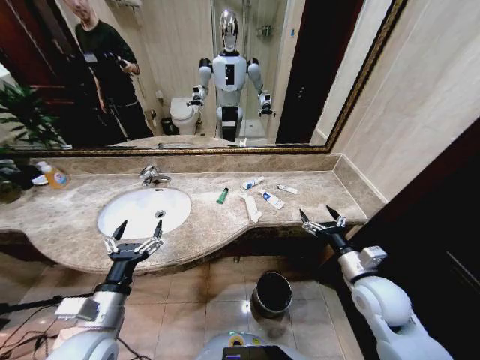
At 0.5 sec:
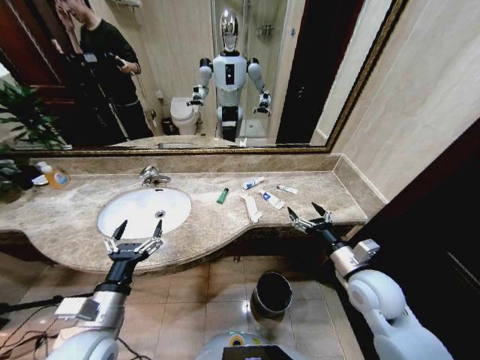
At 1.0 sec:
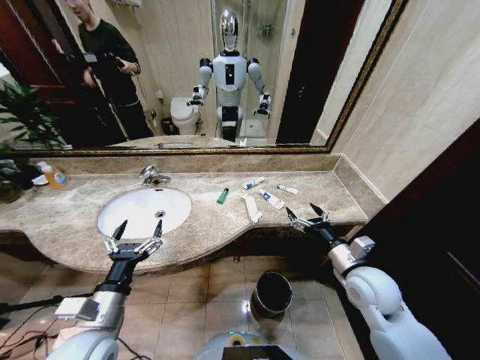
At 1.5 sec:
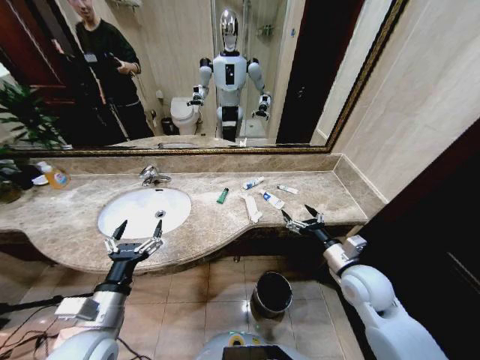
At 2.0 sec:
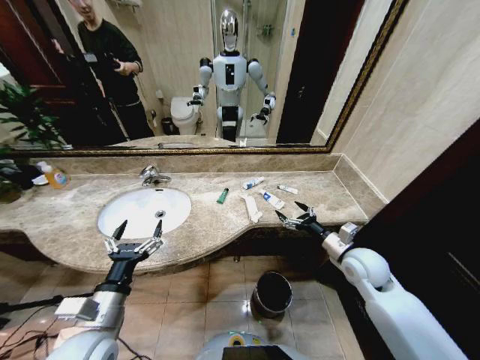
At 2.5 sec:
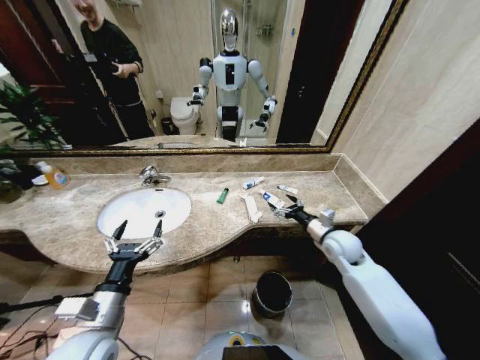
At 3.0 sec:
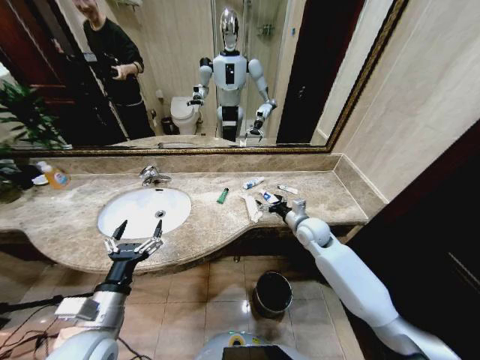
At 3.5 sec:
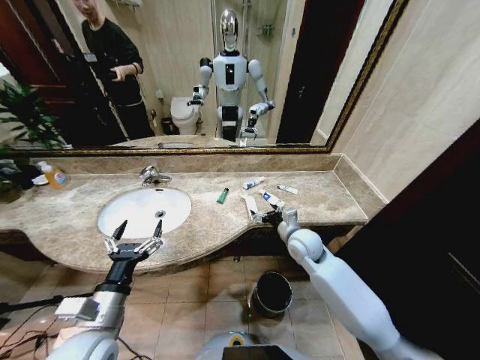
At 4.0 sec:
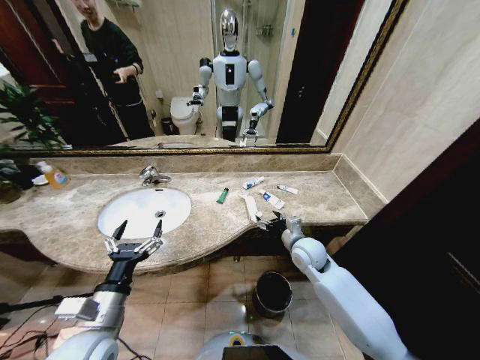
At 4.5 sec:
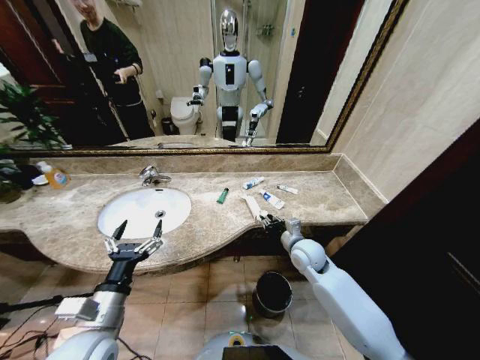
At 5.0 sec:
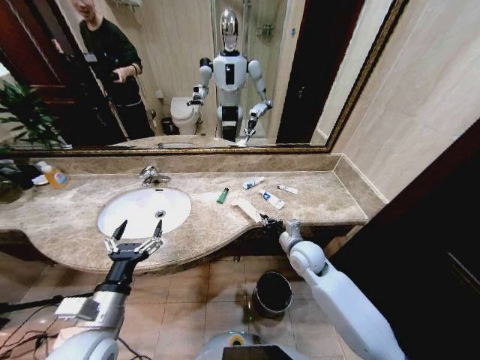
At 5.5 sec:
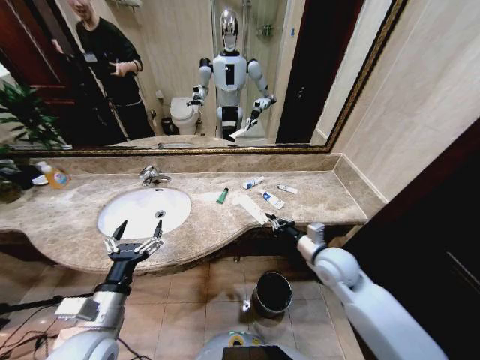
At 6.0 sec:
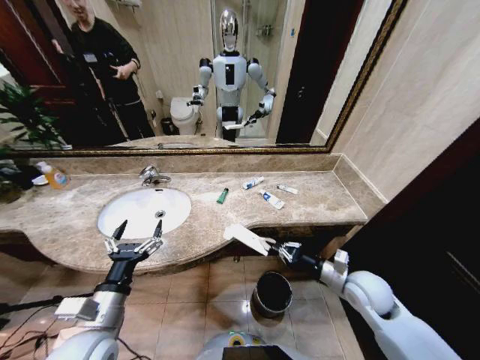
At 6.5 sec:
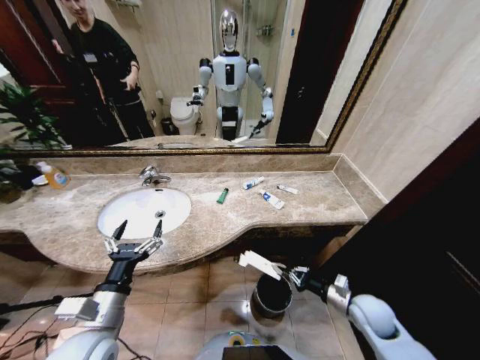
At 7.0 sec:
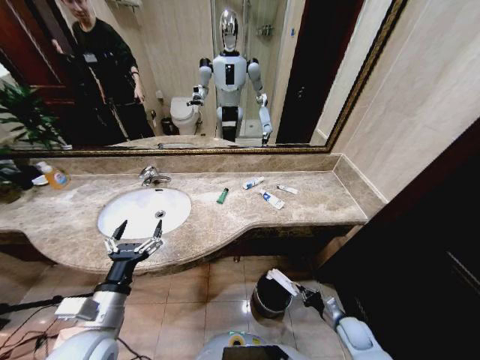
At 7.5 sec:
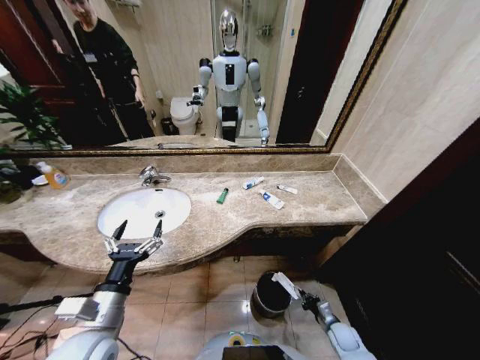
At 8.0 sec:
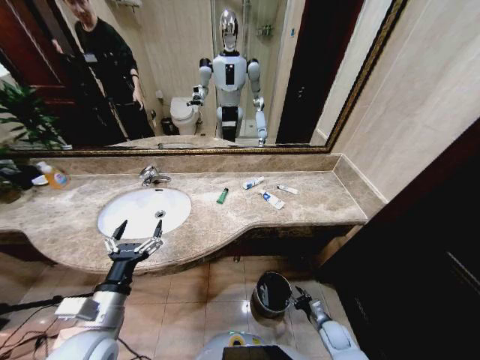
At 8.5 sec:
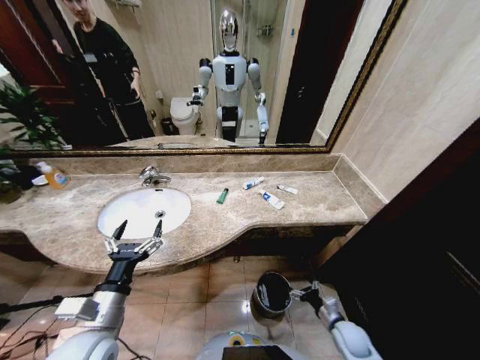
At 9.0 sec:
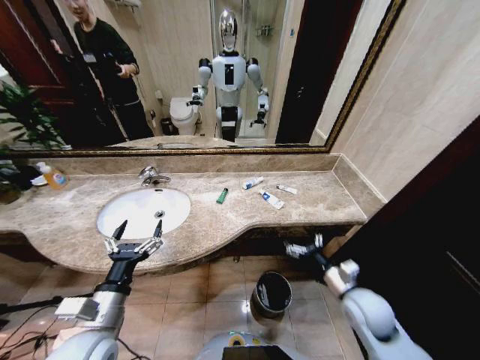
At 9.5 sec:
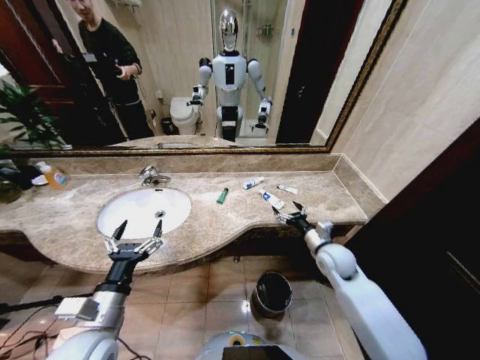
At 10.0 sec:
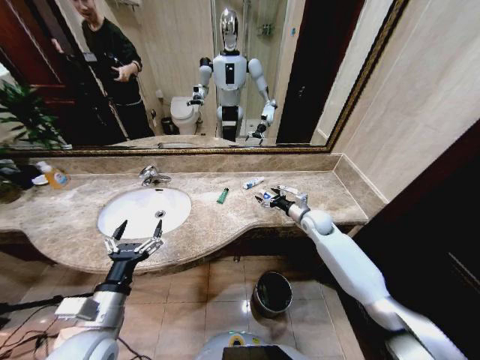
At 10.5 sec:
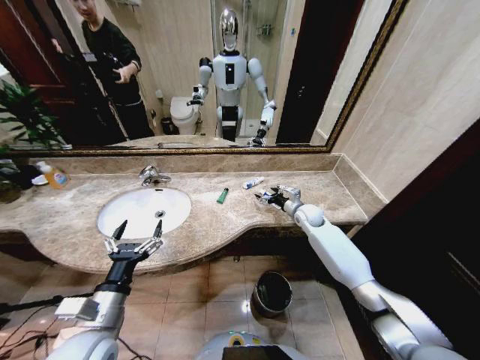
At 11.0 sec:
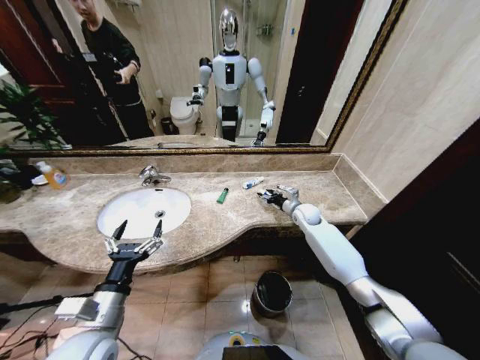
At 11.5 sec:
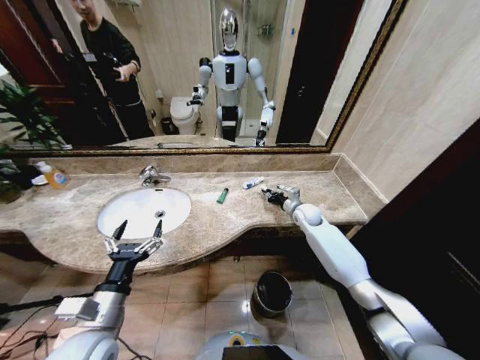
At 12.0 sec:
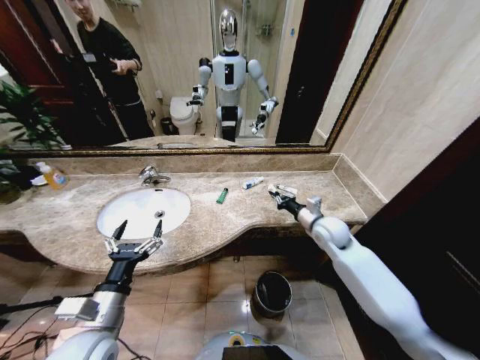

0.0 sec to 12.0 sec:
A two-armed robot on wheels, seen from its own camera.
Task of the whole recording: Pick up the trash from the sink and place it in the trash bin.
2.0 sec to 4.0 sec: The right gripper heads to the left and forward, covering roughly 15 cm.
4.0 sec to 6.0 sec: The right gripper travels to the right and backward by approximately 15 cm, and closes up.
6.0 sec to 8.0 sec: The right gripper shifts roughly 30 cm downward, and opens its fingers.
8.0 sec to 10.0 sec: The right gripper moves upward and forward, some 40 cm, and opens up.
10.0 sec to 12.0 sec: The right gripper goes about 10 cm backward and upward, and closes its fingers.

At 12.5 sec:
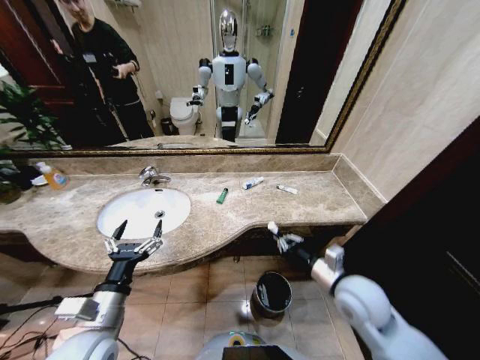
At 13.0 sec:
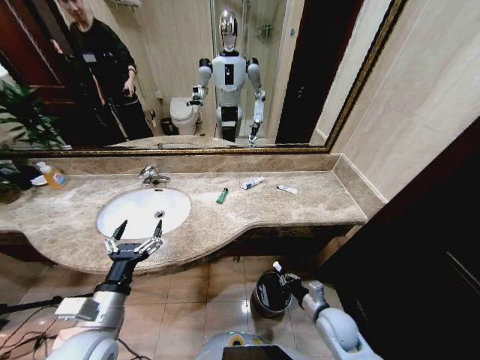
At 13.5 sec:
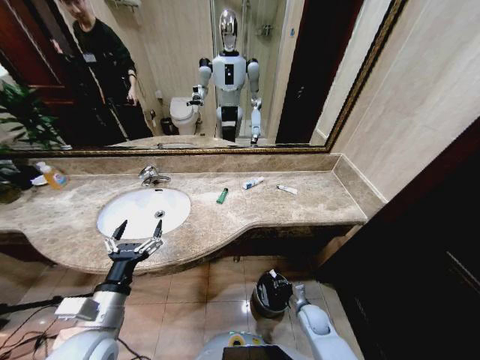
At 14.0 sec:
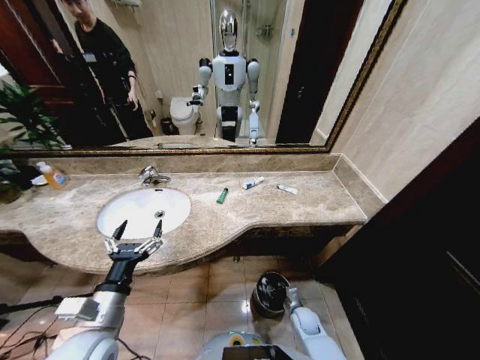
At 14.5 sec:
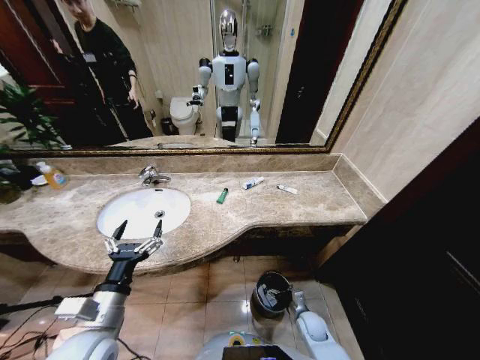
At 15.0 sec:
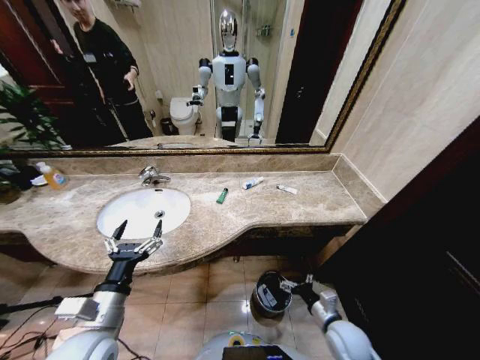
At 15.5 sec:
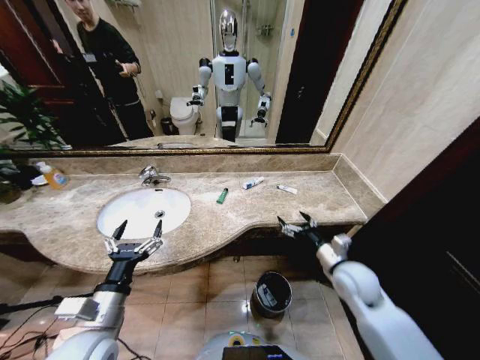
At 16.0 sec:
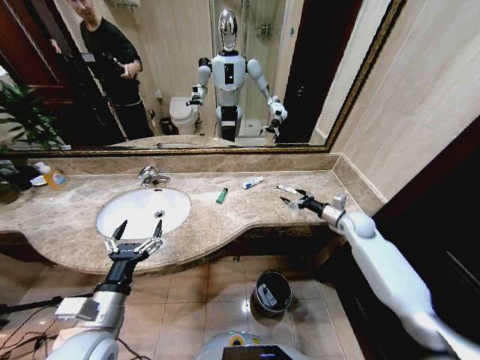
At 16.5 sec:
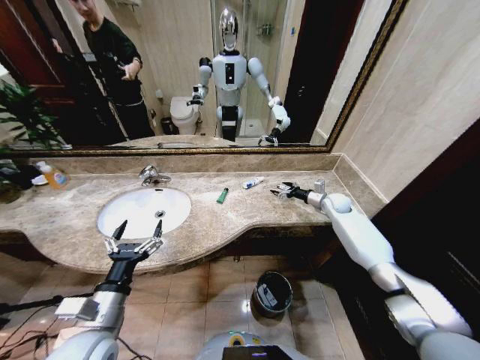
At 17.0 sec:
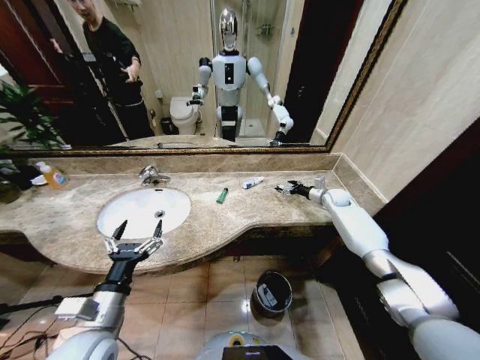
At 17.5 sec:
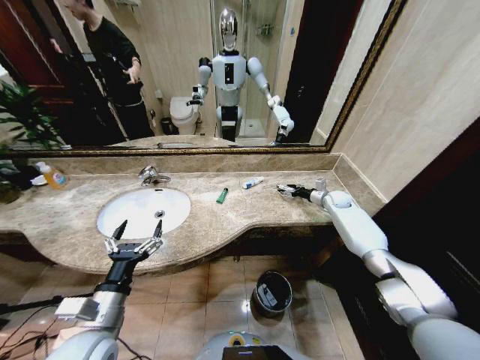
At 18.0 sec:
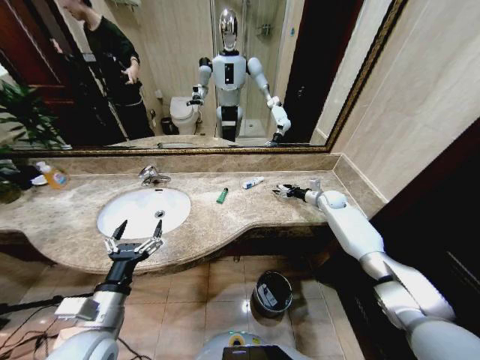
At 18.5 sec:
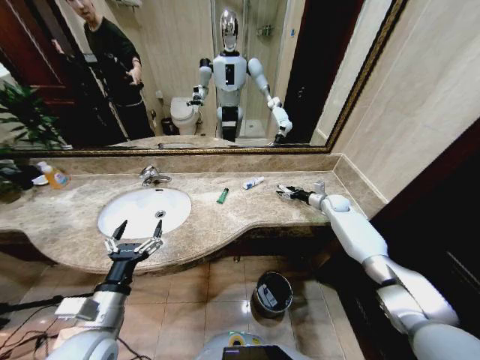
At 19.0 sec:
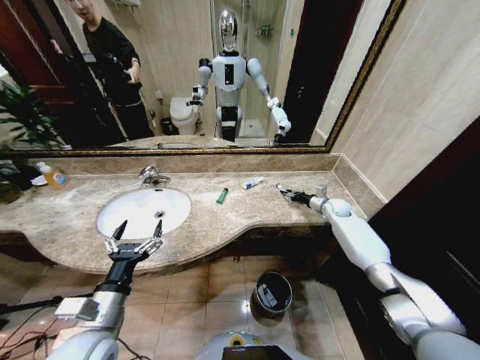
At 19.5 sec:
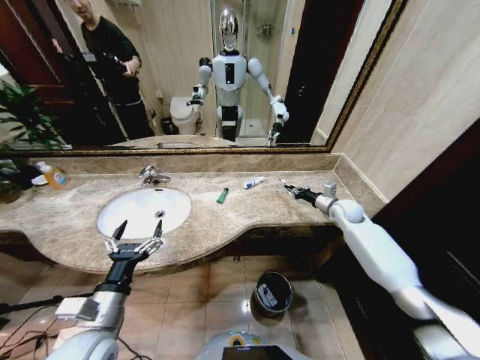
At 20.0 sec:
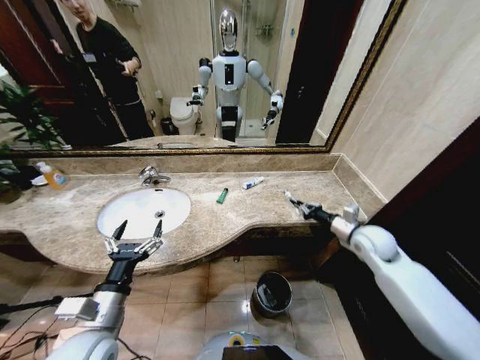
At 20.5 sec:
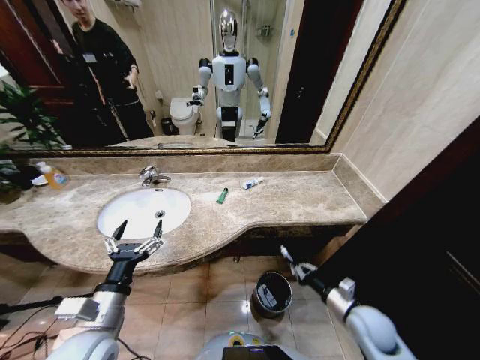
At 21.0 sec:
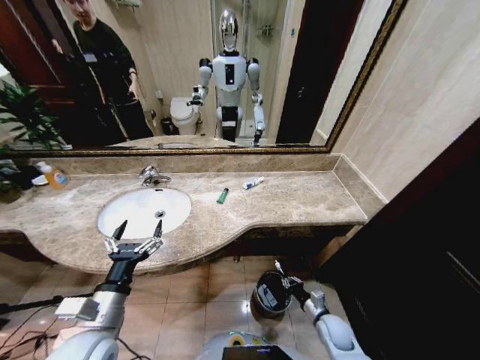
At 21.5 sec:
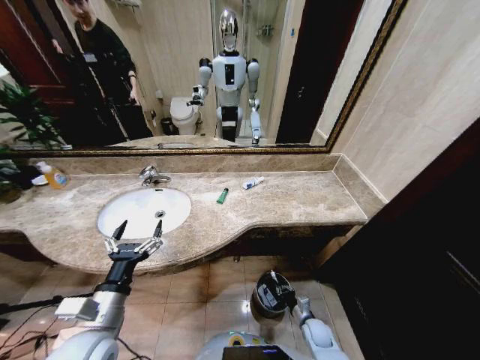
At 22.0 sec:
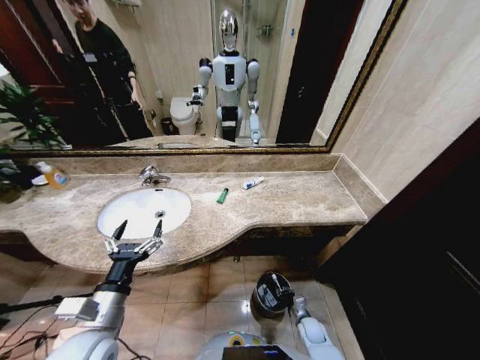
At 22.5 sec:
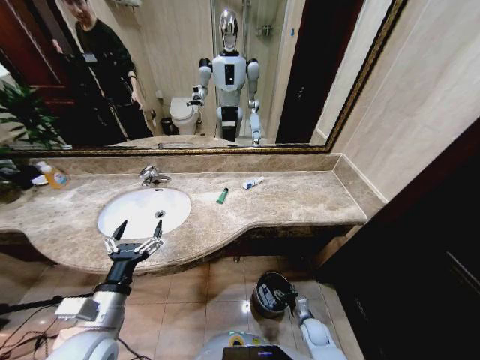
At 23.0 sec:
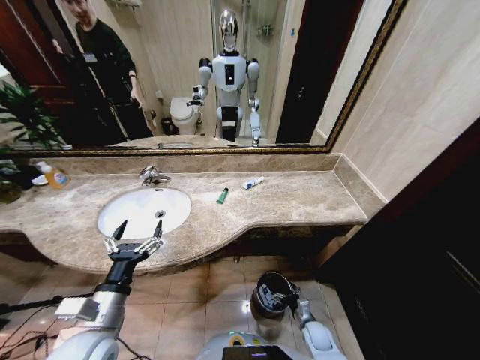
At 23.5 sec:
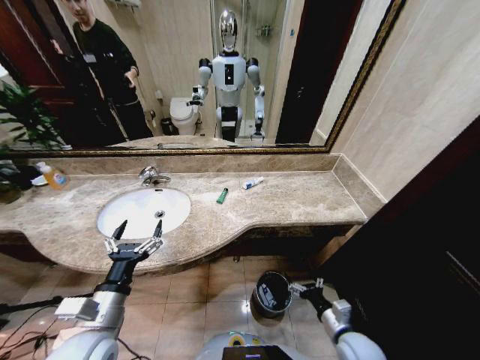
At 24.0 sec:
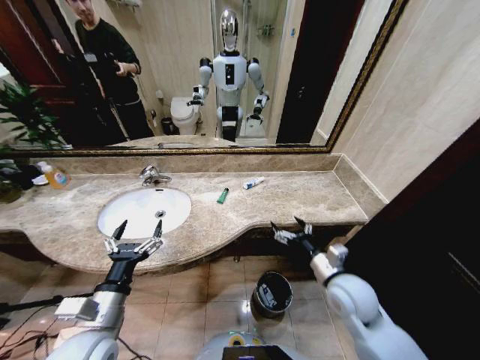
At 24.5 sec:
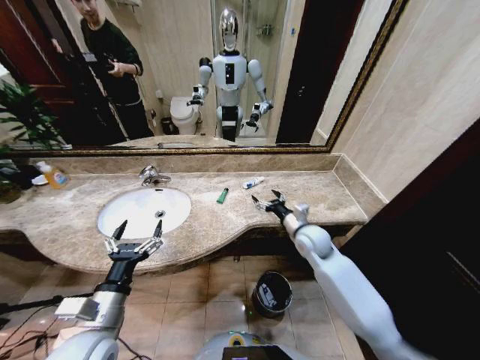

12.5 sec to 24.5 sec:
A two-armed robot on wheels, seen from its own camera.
Task of the whole recording: Pick up the trash from the sink and place it in the trash bin.
12.5 sec to 14.5 sec: The right gripper shifts about 30 cm downward, and opens up.
14.5 sec to 16.5 sec: The right gripper heads forward, upward and to the right, covering about 50 cm.
16.5 sec to 18.5 sec: The grippers stay close to where they were, moving slightly.
18.5 sec to 20.5 sec: The right gripper heads backward, covering roughly 35 cm, and closes up.
20.5 sec to 22.5 sec: The right gripper is displaced downward by some 25 cm, and opens its fingers.
22.5 sec to 24.5 sec: The right gripper heads upward and forward, covering approximately 40 cm, and opens.

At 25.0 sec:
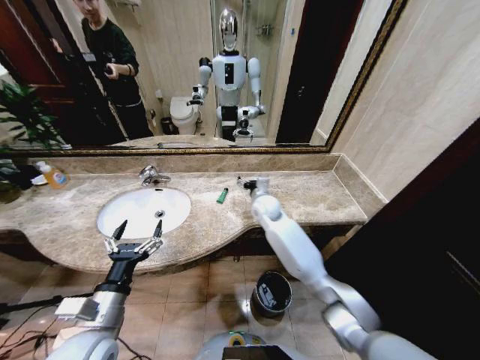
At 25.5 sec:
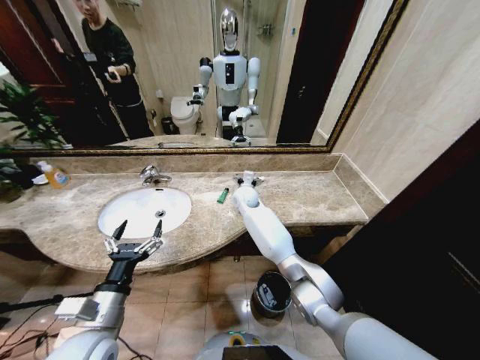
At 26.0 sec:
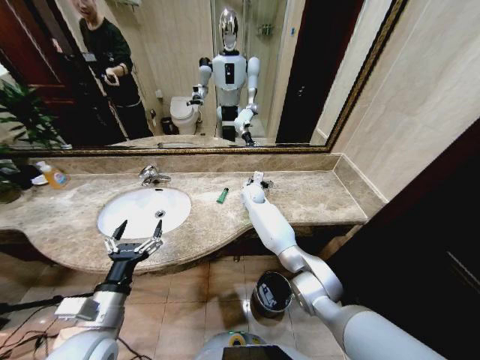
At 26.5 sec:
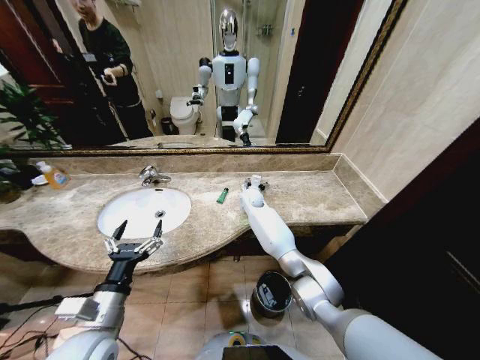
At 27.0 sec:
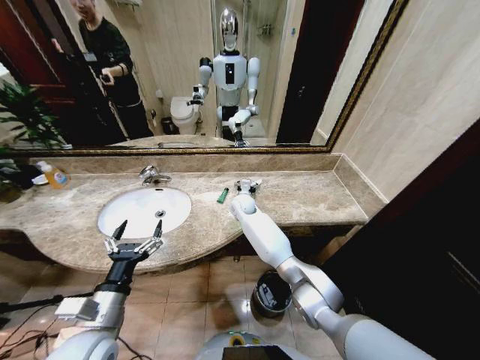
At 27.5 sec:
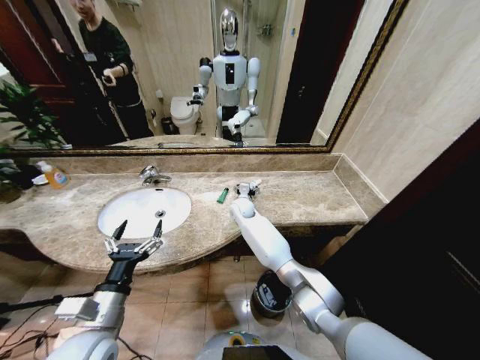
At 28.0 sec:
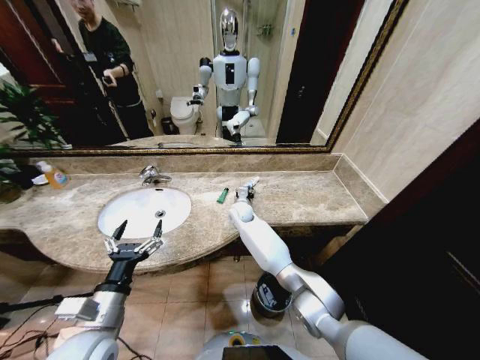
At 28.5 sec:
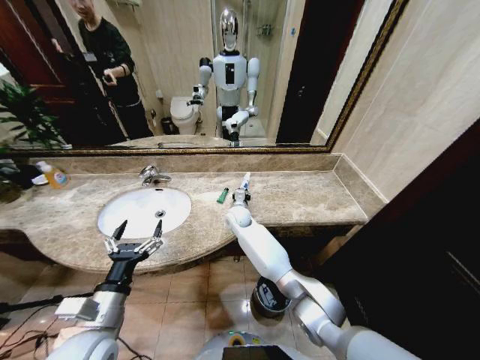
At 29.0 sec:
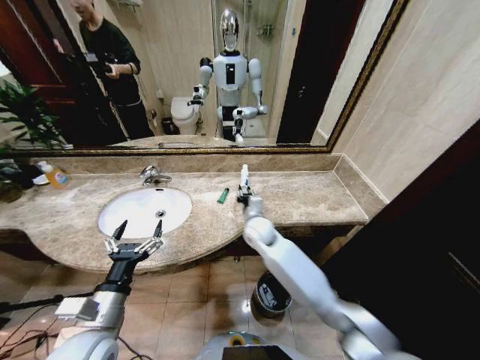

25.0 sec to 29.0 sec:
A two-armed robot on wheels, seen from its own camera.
Task of the whole recording: Pick up the trash from the sink and place it in the trash bin.
25.0 sec to 27.0 sec: The right gripper is displaced to the left and forward by about 10 cm.
27.0 sec to 29.0 sec: The right gripper moves backward, roughly 15 cm, and closes up.
